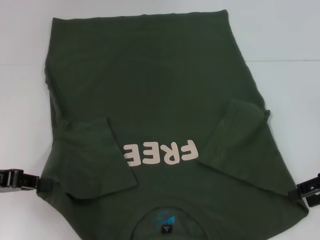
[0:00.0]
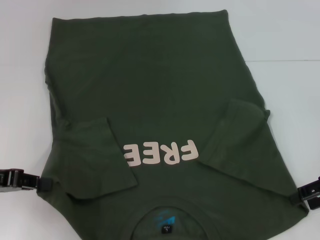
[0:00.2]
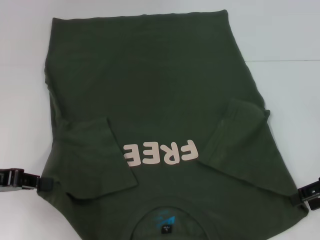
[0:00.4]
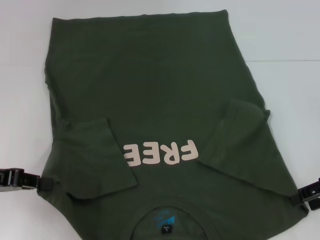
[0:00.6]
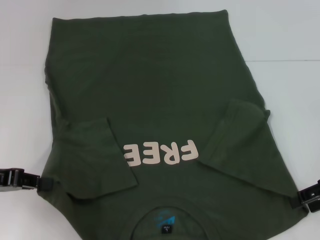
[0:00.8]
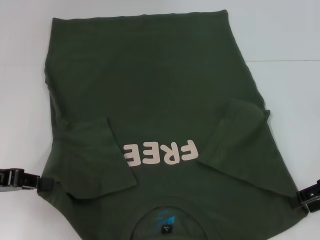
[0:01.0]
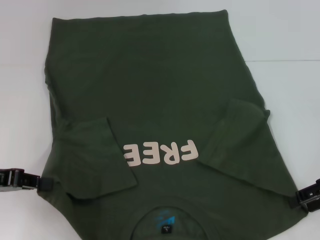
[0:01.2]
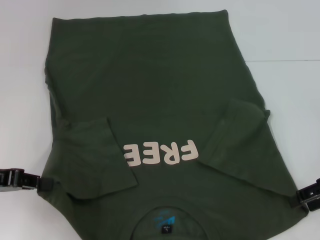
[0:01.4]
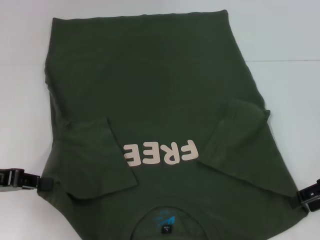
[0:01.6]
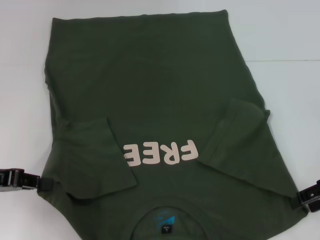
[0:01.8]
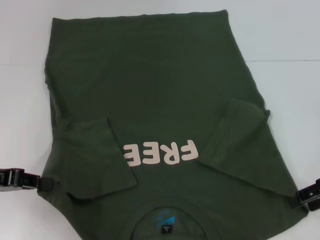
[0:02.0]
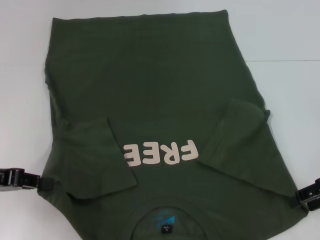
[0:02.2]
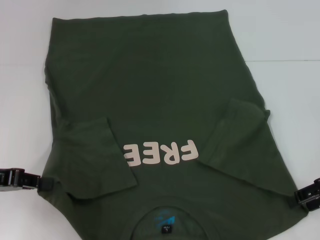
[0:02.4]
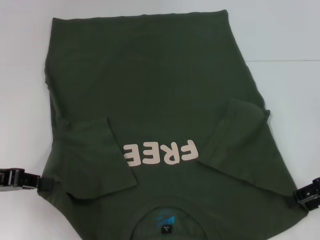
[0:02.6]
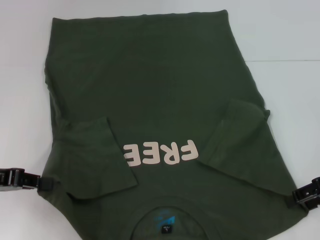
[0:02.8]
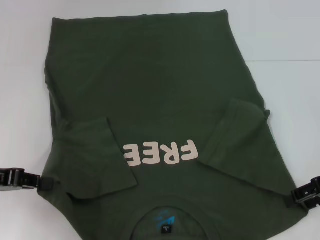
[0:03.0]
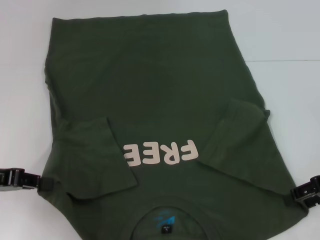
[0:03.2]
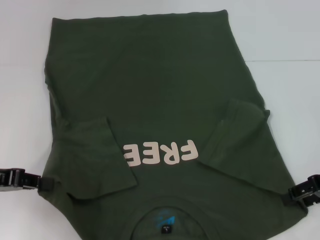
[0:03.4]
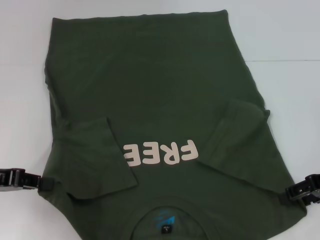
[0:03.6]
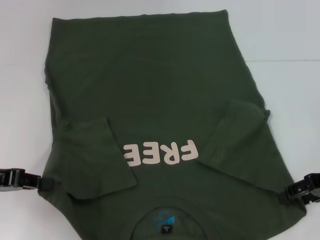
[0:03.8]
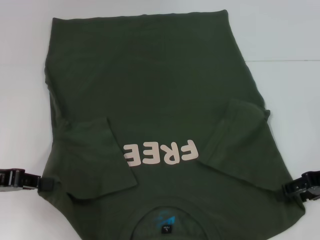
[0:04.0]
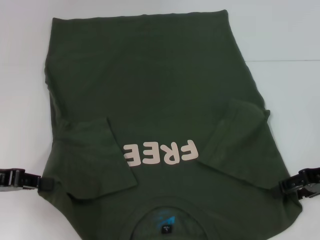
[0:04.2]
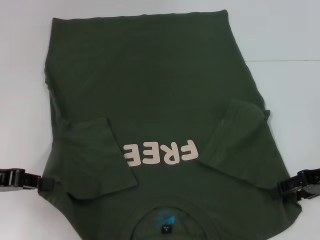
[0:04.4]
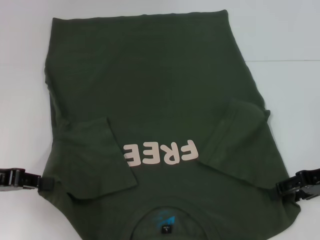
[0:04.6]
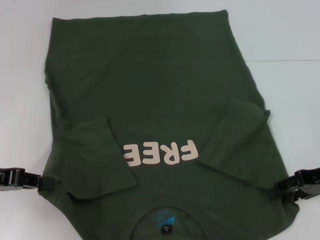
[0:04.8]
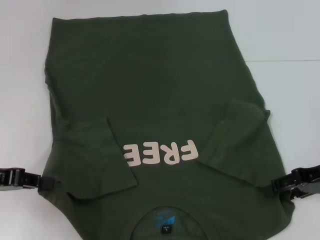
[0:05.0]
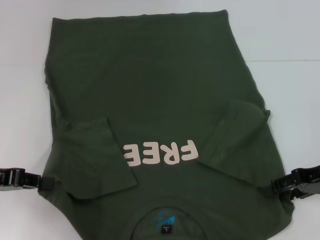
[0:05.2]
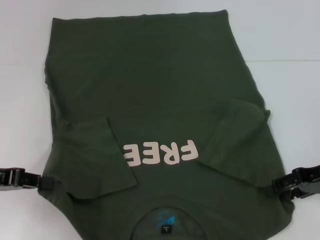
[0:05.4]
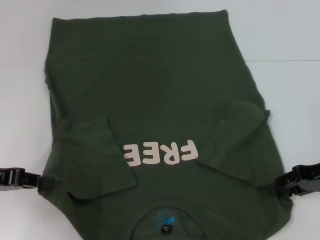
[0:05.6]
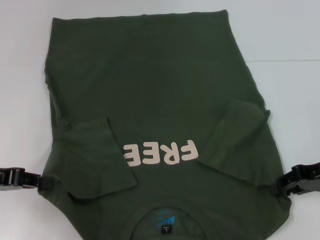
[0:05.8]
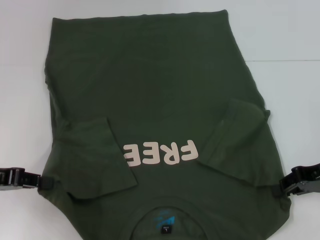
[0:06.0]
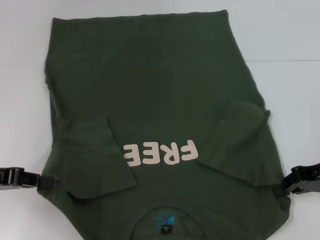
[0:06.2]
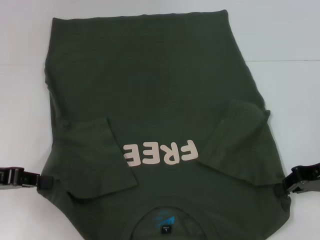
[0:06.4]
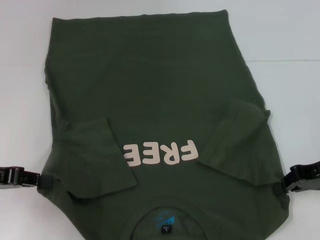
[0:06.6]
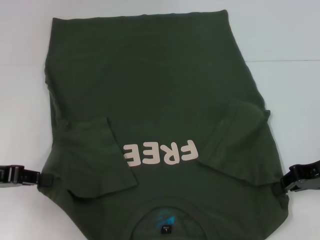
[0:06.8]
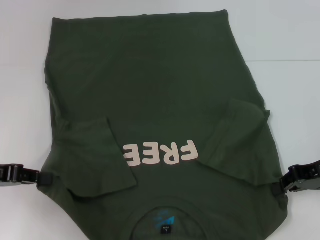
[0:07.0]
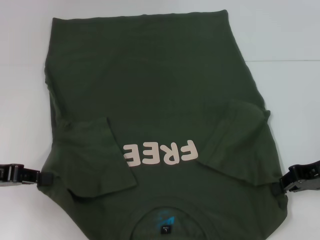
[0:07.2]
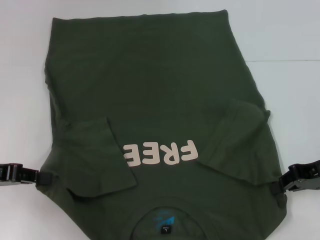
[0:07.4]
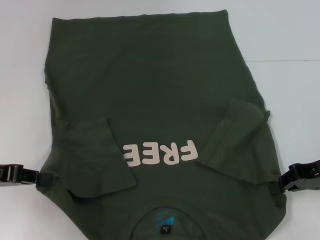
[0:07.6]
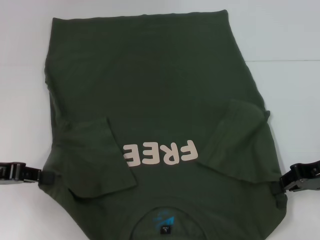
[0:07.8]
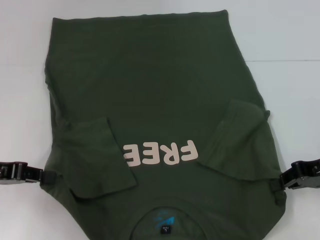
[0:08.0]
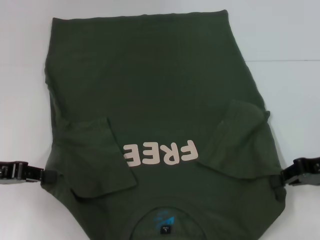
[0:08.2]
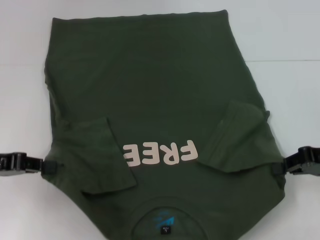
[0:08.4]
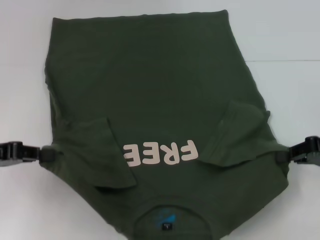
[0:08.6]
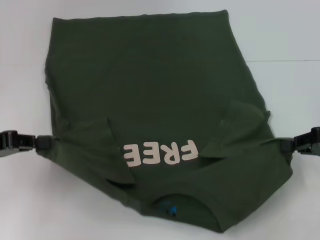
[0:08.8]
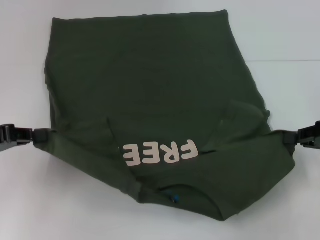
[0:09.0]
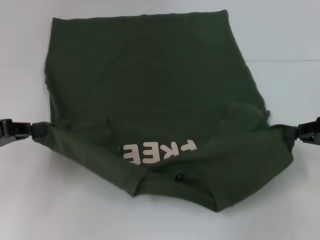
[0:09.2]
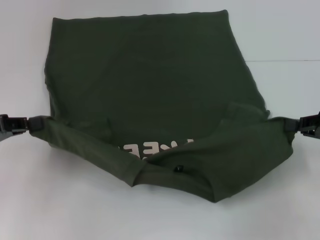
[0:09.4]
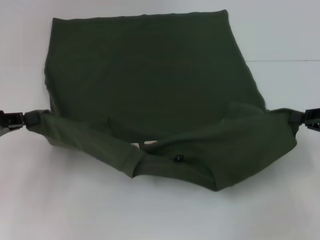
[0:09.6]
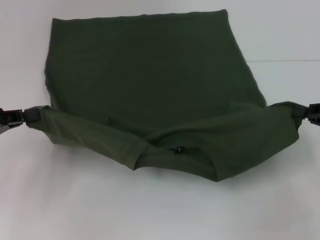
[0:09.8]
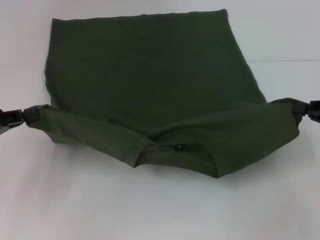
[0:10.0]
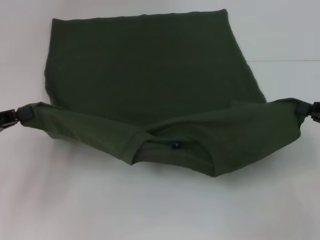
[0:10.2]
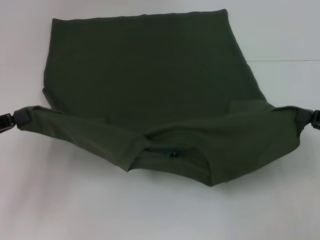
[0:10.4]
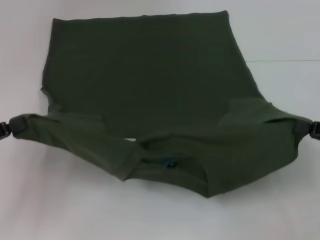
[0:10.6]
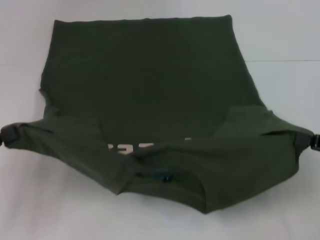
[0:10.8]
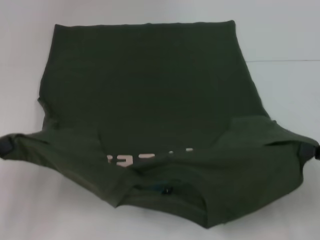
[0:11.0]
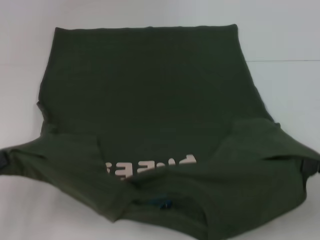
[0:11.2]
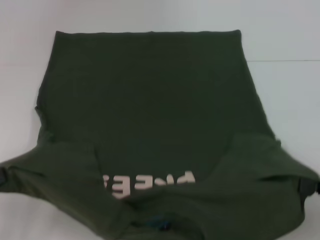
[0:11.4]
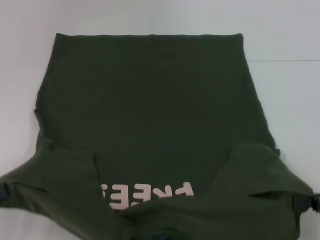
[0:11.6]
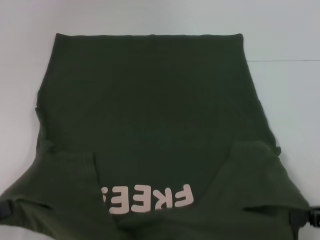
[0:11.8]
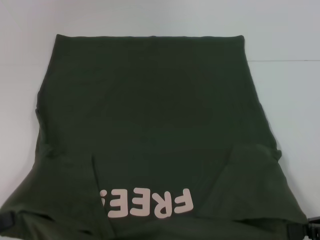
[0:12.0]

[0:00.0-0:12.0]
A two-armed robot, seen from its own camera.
Step, 0:00.0 to 0:07.8: Grab the bottom right corner with your right hand.
0:00.0 to 0:03.0: Both grippers stay about where they are.
0:03.0 to 0:04.4: There are only small adjustments of the grippers.
0:04.4 to 0:06.0: The right gripper closes.
0:06.0 to 0:07.6: The two grippers keep their place.
0:10.4 to 0:12.0: The two grippers go roughly 10 cm backward.

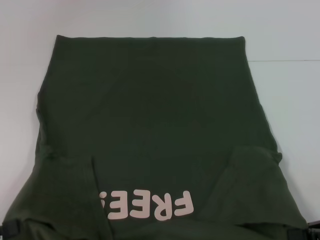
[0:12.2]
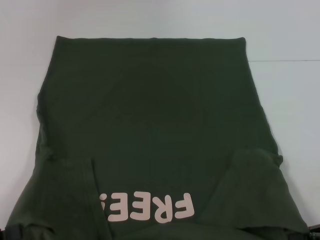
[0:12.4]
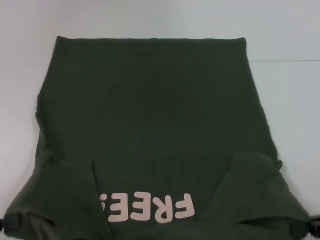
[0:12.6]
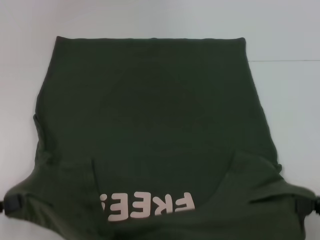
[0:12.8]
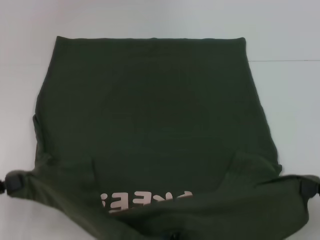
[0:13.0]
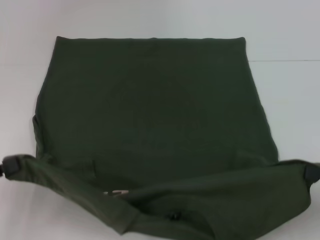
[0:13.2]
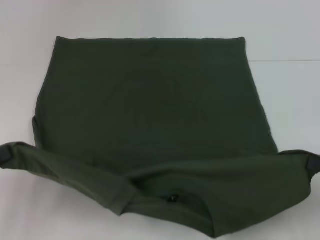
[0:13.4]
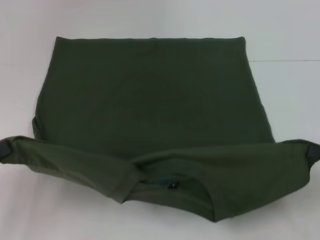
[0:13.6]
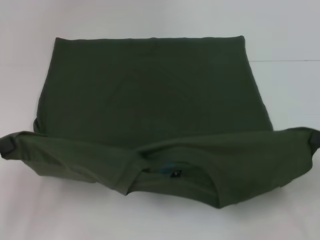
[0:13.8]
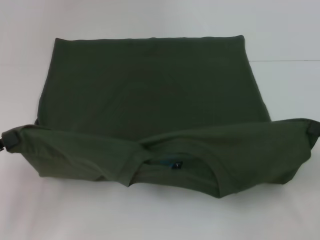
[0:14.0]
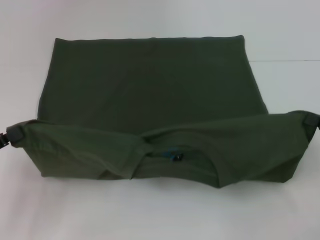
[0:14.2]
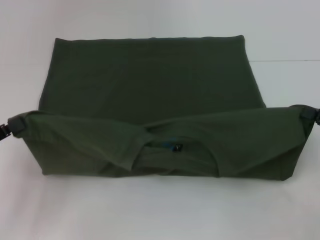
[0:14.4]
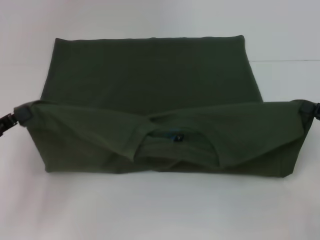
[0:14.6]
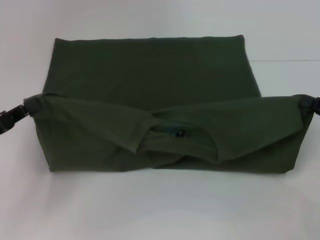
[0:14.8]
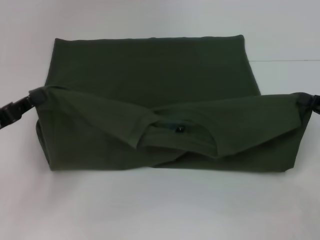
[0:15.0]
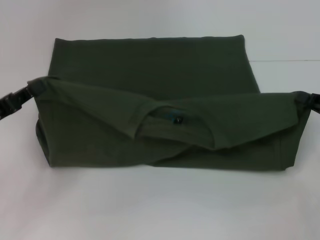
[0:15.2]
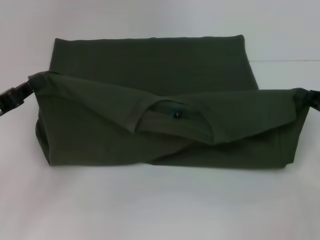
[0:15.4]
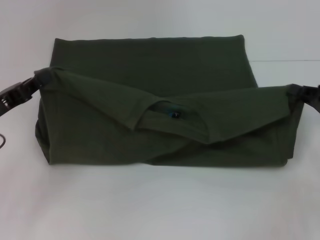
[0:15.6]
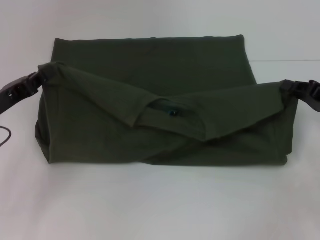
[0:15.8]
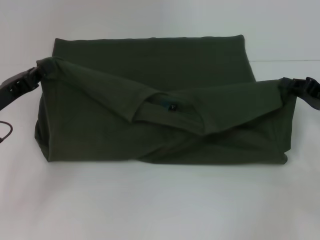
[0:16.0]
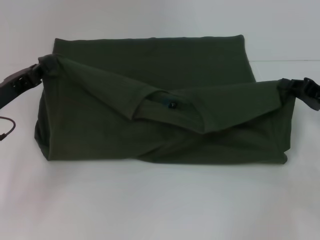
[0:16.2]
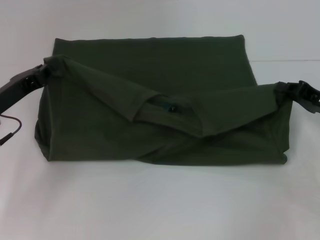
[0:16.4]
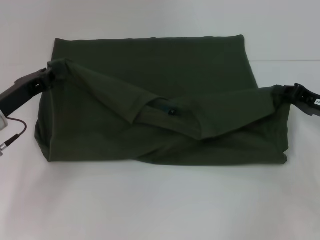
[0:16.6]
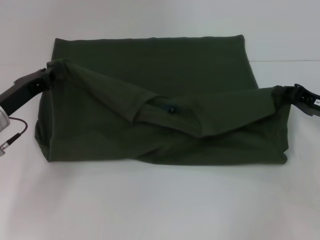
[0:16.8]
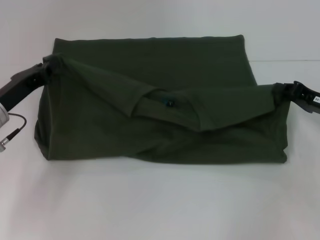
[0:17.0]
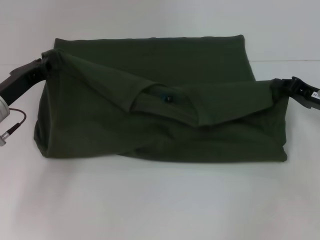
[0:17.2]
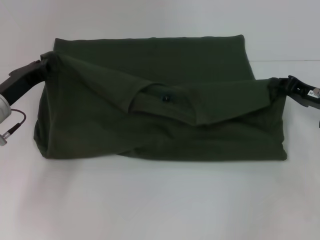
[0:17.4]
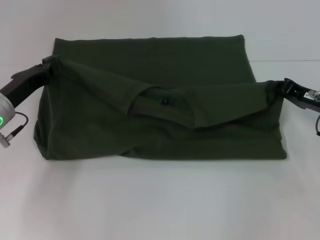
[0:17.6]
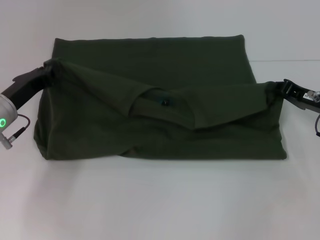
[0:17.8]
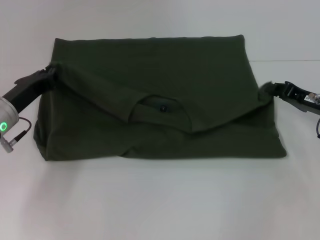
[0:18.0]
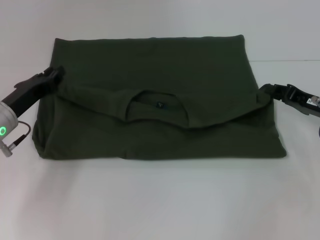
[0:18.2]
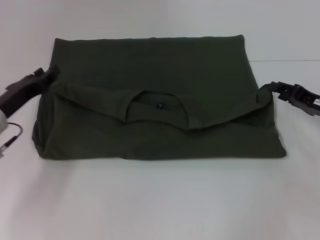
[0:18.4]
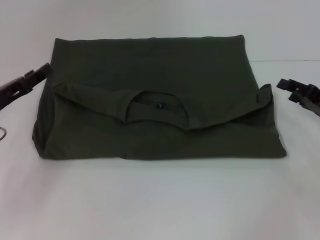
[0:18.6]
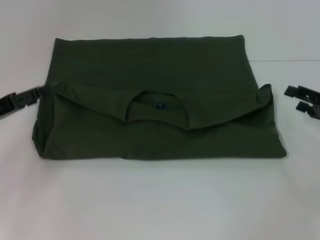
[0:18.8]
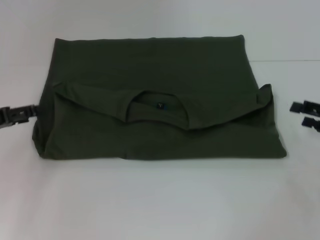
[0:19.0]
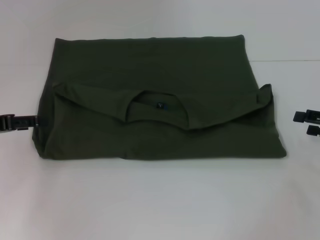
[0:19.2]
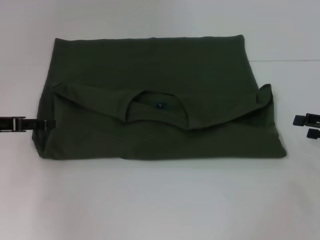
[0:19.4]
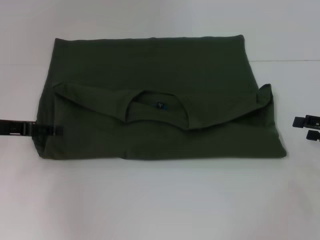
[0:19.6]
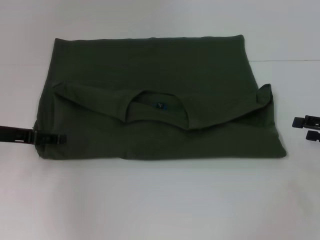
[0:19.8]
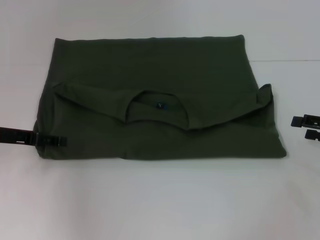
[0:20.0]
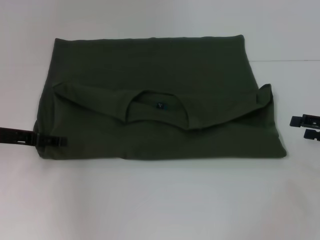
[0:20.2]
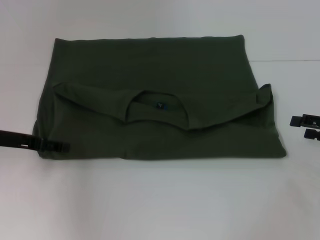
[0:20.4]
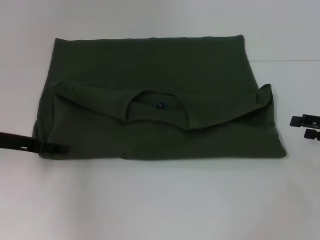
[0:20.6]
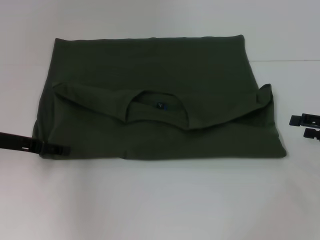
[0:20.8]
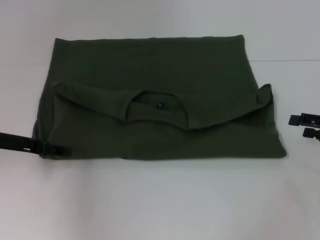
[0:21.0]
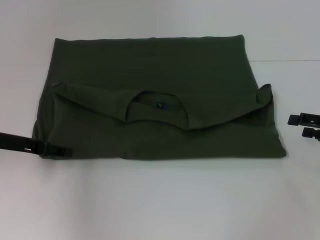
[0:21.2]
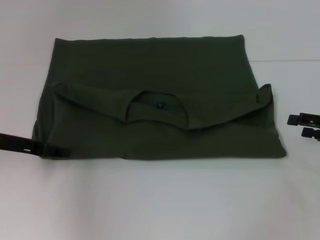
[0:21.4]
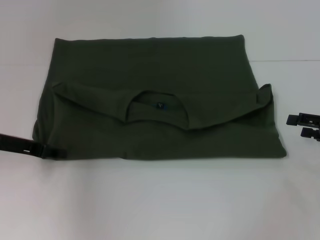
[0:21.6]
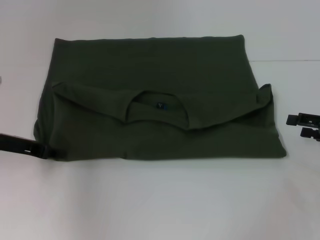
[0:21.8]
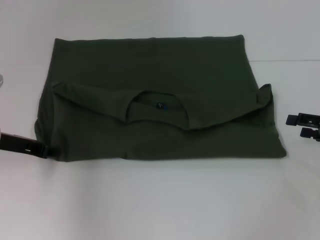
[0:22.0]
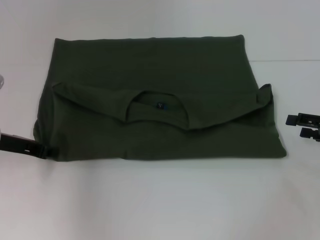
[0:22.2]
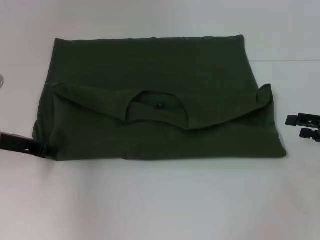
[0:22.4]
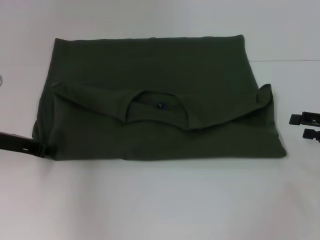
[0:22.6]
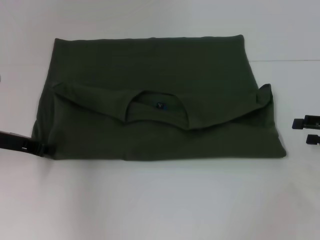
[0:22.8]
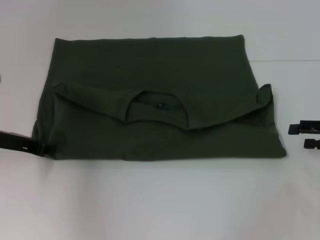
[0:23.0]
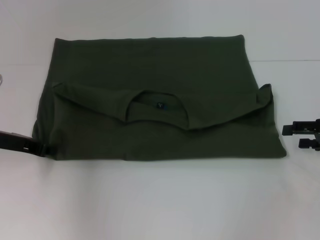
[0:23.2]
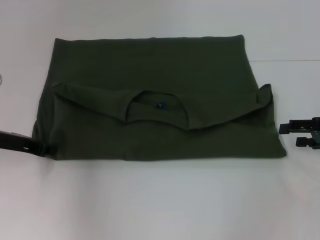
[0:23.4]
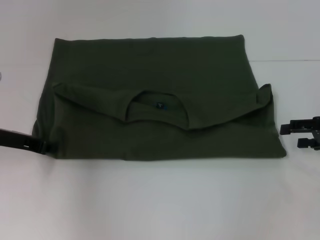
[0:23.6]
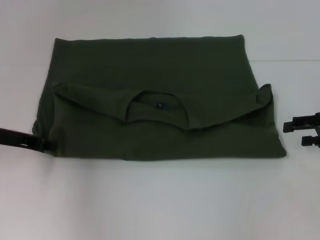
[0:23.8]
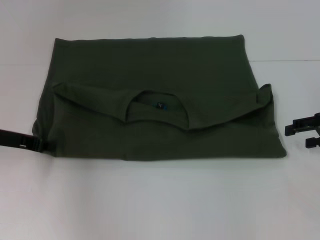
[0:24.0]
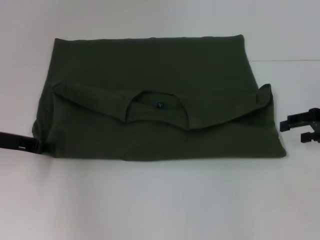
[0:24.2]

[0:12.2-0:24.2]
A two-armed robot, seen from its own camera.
Step, 0:12.2 to 0:18.2: Fold the clothes with your left hand.
Step, 0:12.2 to 0:18.2: Fold the clothes with your right hand.
0:12.2 to 0:13.8: The left gripper shifts roughly 5 cm forward.
0:13.8 to 0:15.2: The two grippers go some 5 cm forward.
0:15.2 to 0:16.6: The right gripper shifts by approximately 5 cm, while the left gripper goes about 5 cm forward.
0:16.6 to 0:18.2: The grippers make only small movements.
0:18.2 to 0:19.8: The right gripper shifts some 10 cm to the right and backward, and opens up; the left gripper opens its fingers.
0:19.8 to 0:21.2: The grippers move only a little.
0:22.6 to 0:24.2: The right gripper ends up roughly 5 cm from where it was.
